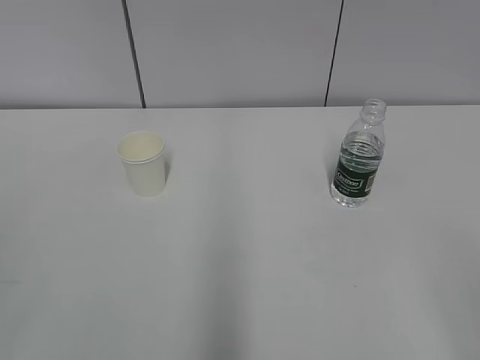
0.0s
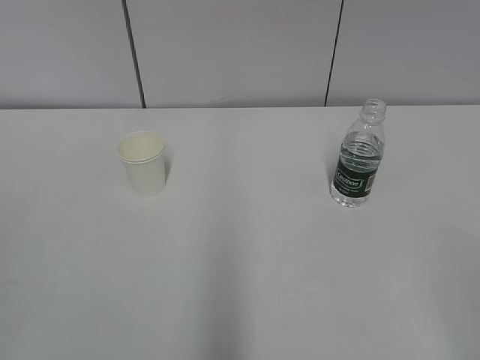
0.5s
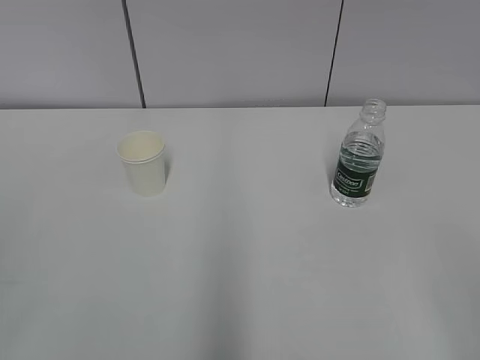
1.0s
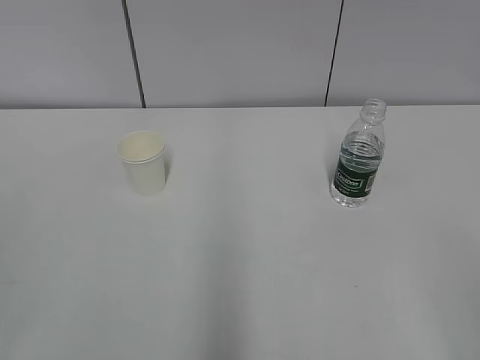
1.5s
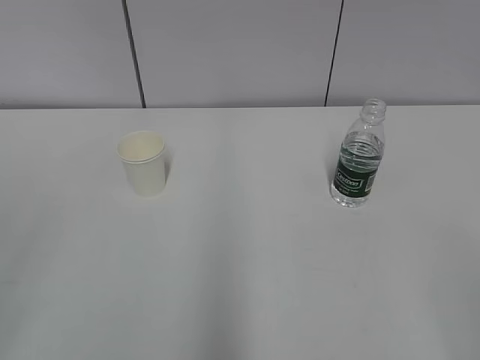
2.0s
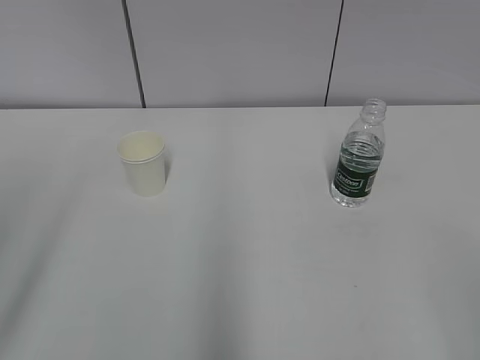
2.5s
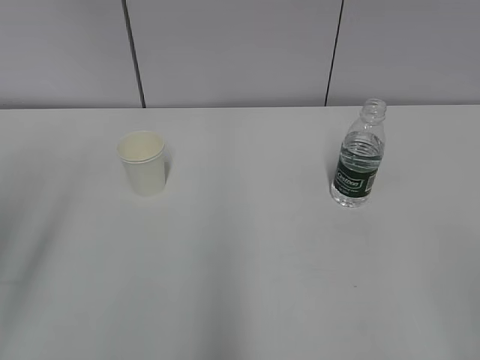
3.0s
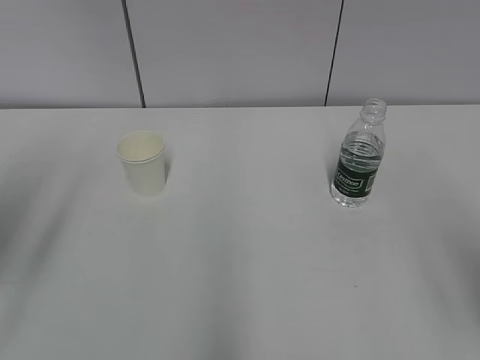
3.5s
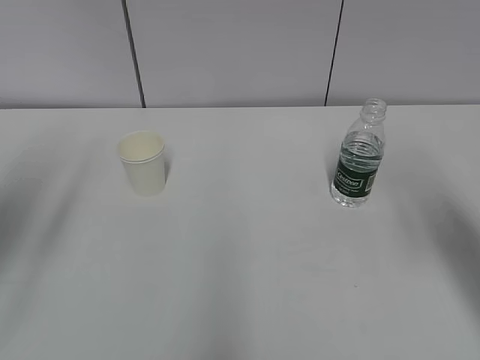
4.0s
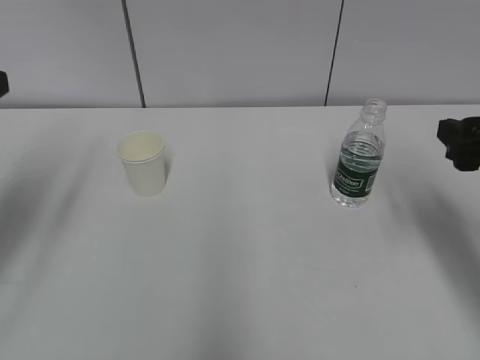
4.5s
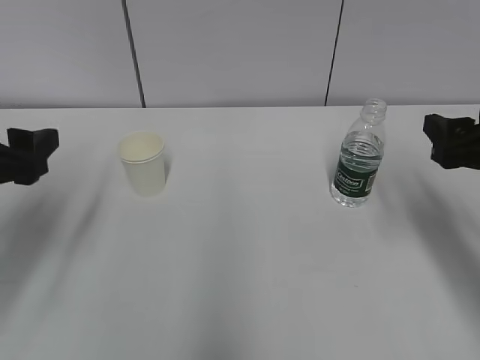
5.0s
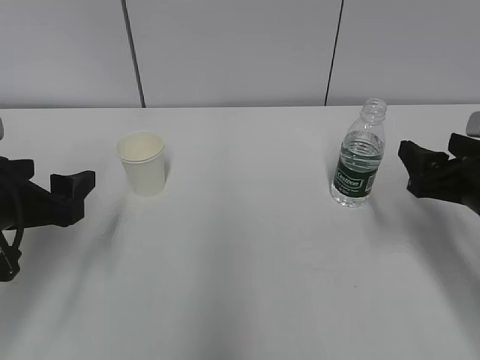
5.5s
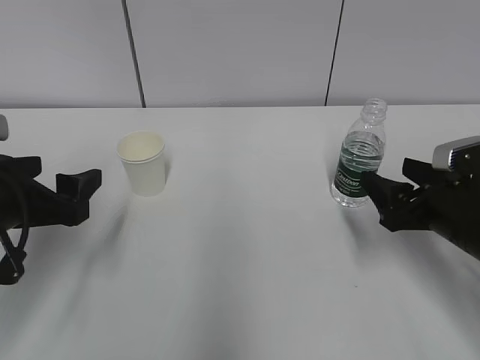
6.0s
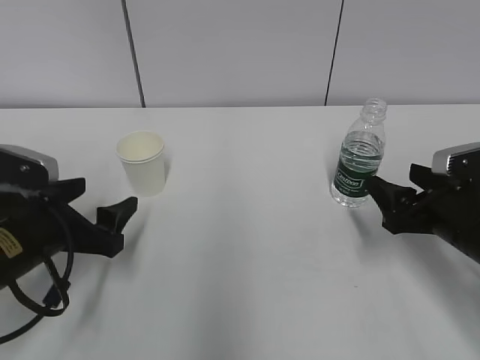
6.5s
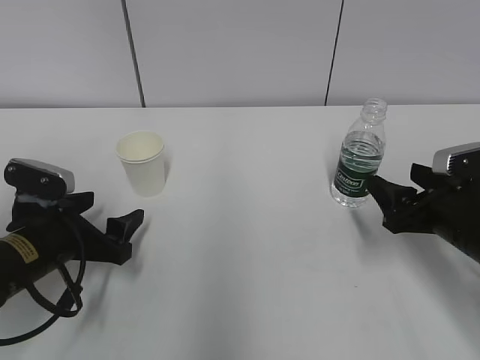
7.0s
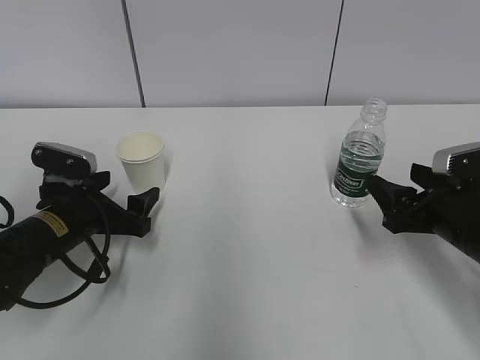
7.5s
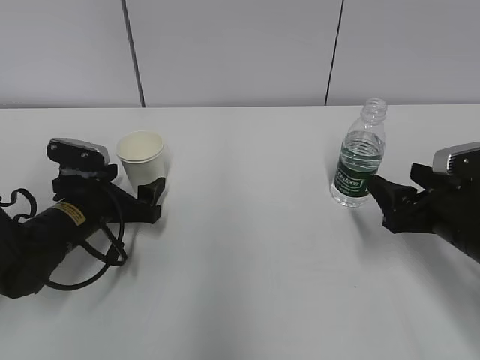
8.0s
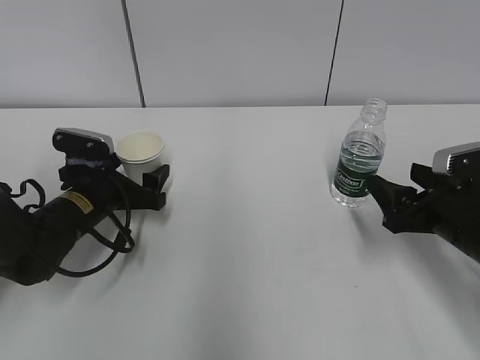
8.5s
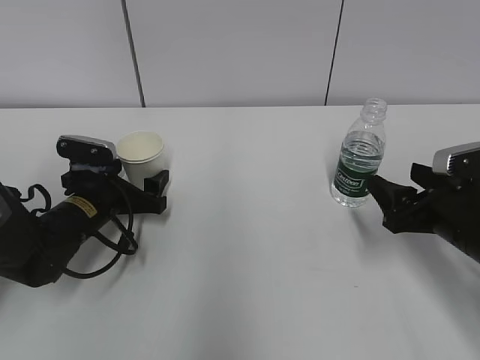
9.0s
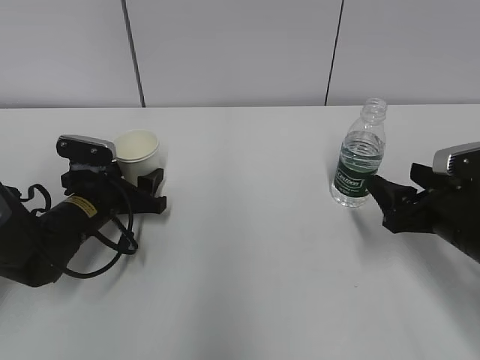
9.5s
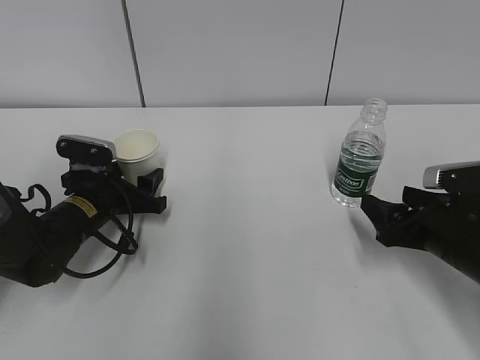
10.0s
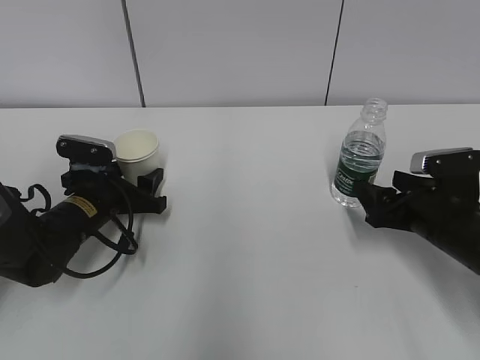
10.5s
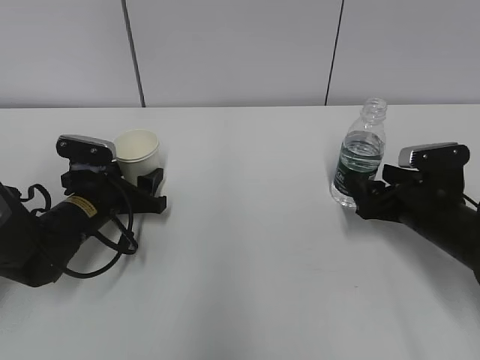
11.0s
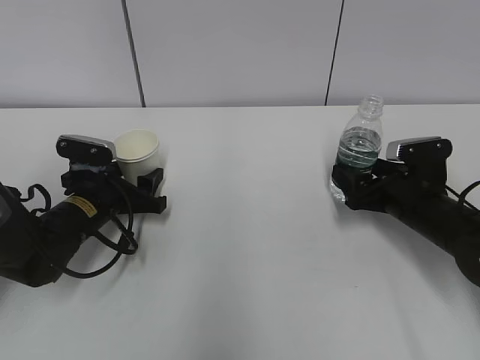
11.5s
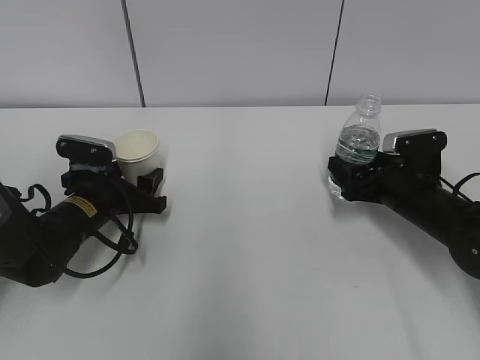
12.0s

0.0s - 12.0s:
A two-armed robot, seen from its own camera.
Step, 0.0s - 10.0s: Grab the paper cup with the left hand.
Step, 10.5s - 11.0s: Grab the water bottle with the right hand.
2.0s - 4.0s: The two grippers go approximately 20 cm forward. The left gripper opens up.
4.0s - 6.0s: The left gripper moves downward and to the right, about 15 cm, while the right gripper shifts some 15 cm downward and forward.
6.0s - 8.0s: The left gripper travels downward and forward by some 15 cm.
8.0s - 10.0s: The left gripper closes up.
10.0s - 12.0s: The right gripper travels forward by approximately 10 cm.

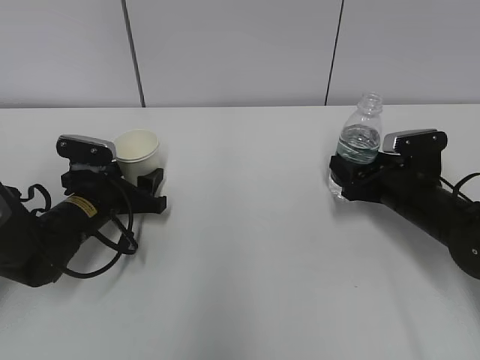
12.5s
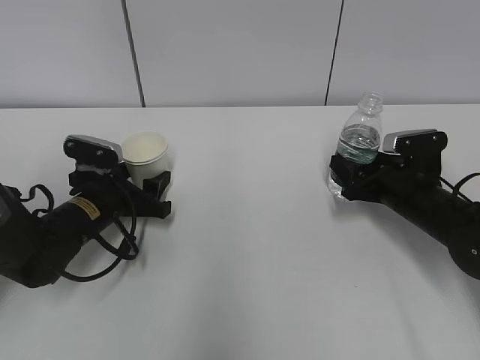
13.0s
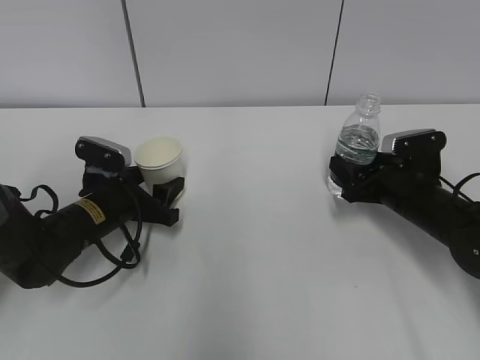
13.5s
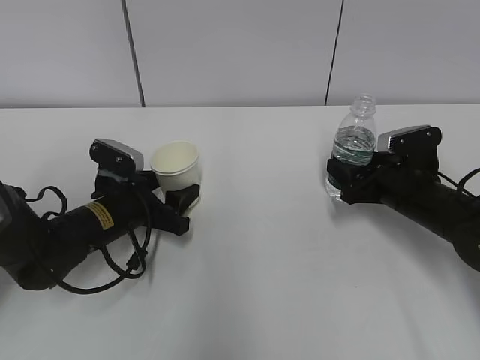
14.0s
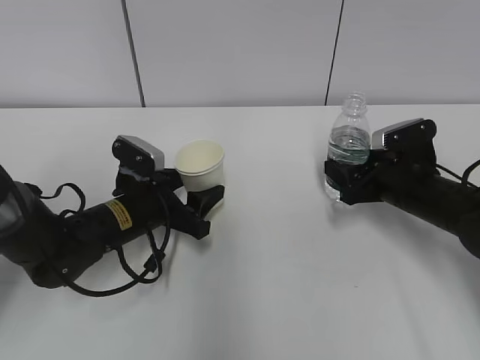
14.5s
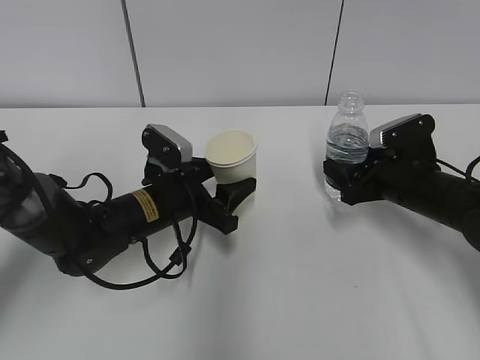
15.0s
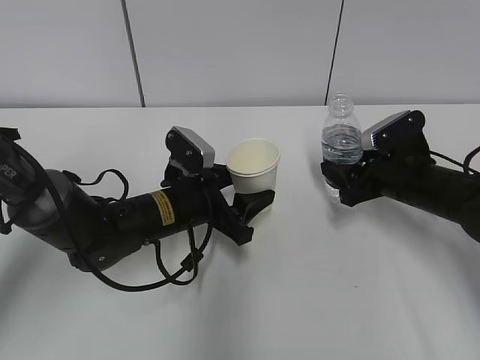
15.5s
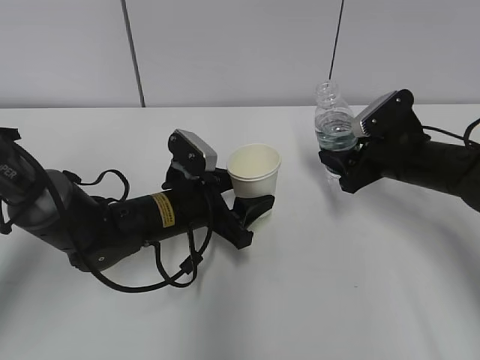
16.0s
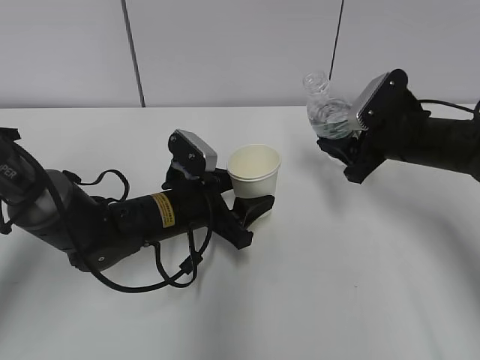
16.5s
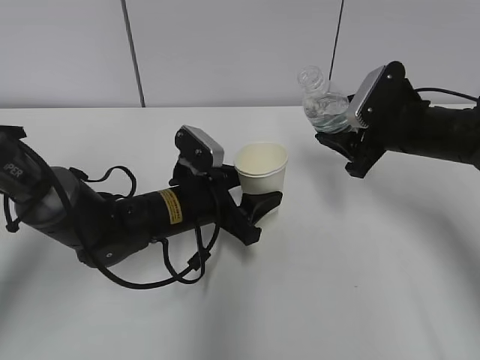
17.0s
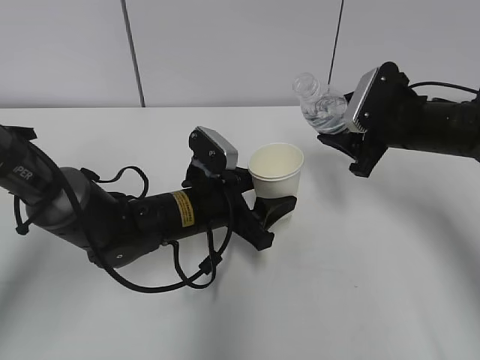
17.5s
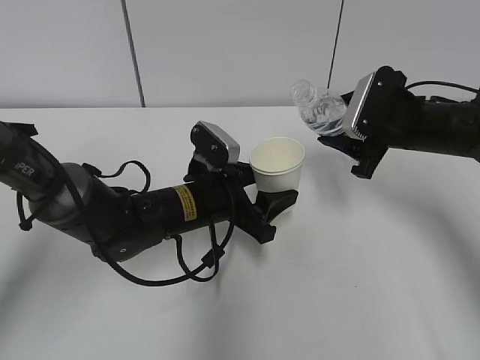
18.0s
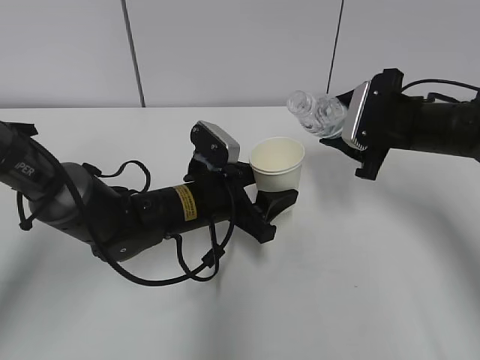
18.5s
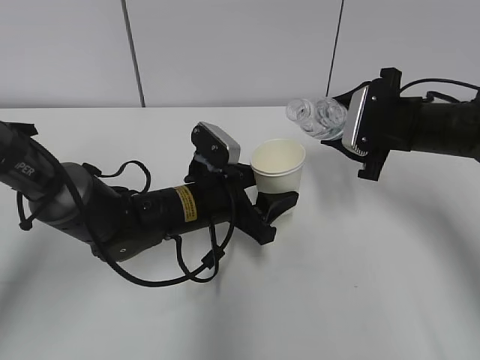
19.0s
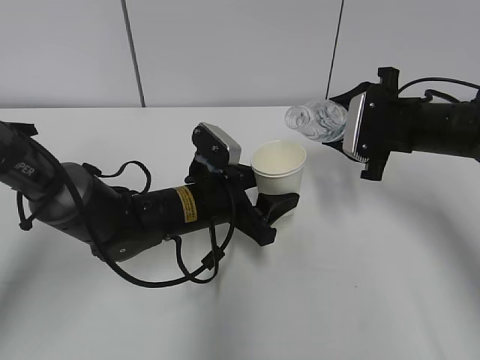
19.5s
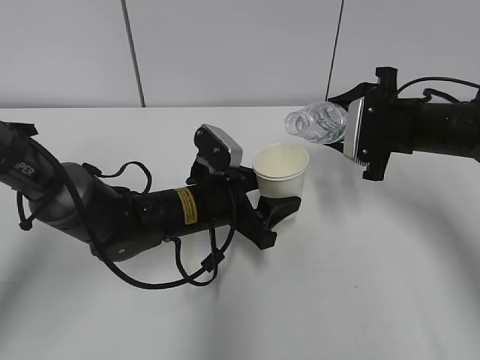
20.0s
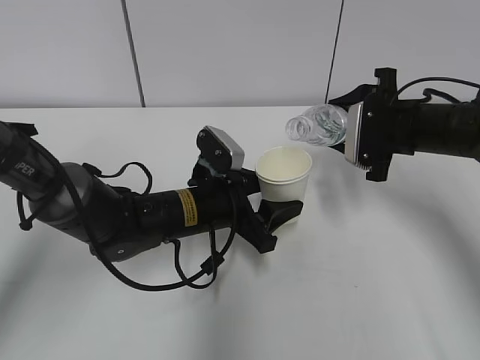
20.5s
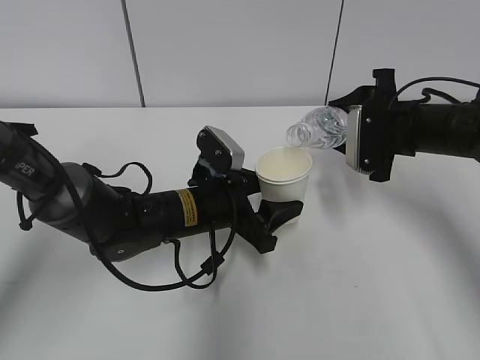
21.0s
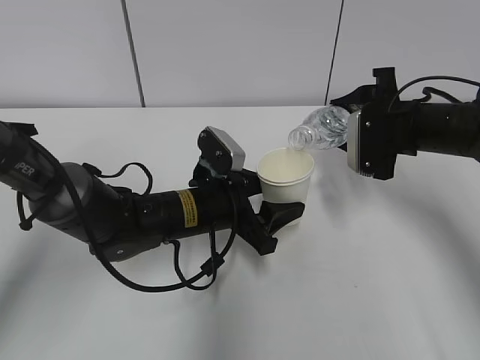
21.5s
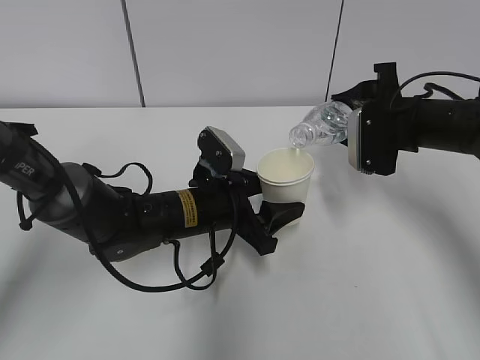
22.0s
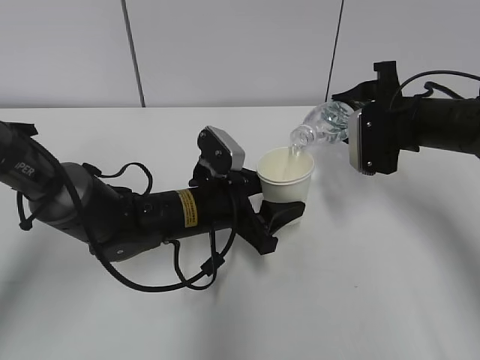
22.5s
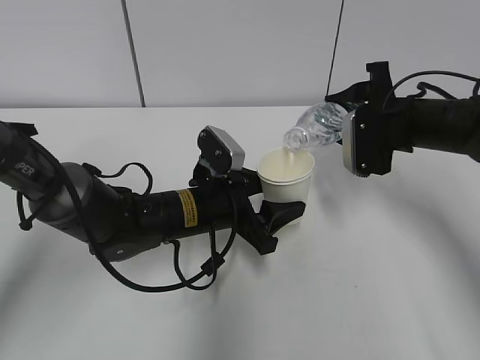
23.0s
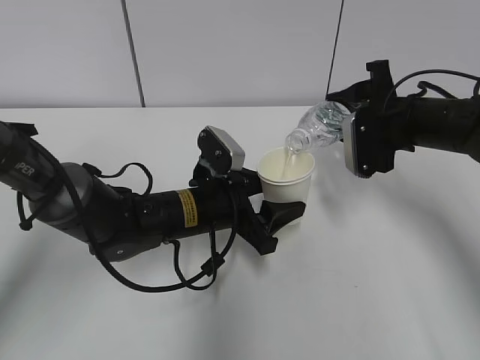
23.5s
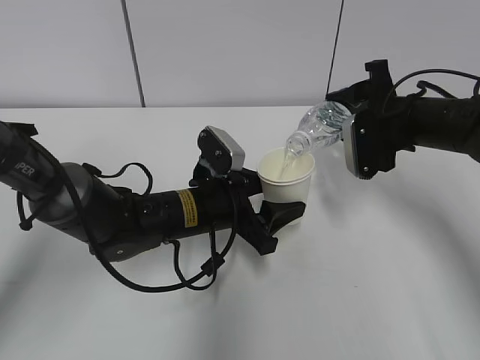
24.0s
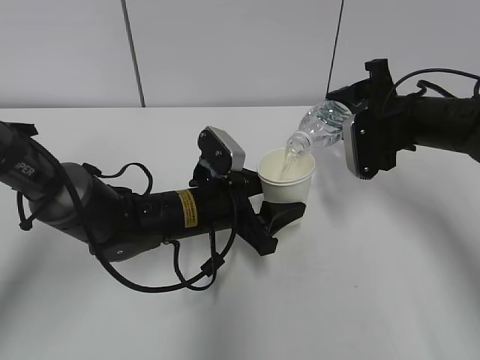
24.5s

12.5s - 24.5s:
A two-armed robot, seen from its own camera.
Step, 12.5s - 18.5s: Lift the paper cup with the left hand.
Step, 19.0s - 22.0s: Fill water with the left hand.
Step, 19.0s - 22.0s: Pour water with the right hand.
Step, 22.5s - 23.5s: Collect water with the right hand.
12.5s - 14.5s: The left gripper goes roughly 5 cm to the right.
14.5s - 16.5s: The left gripper moves to the right, some 5 cm. Meanwhile the right gripper travels upward by approximately 5 cm.
18.5s - 20.5s: The grippers move only a little.
20.5s - 22.5s: There are only small adjustments of the grippers.
22.5s - 24.5s: There are only small adjustments of the grippers.

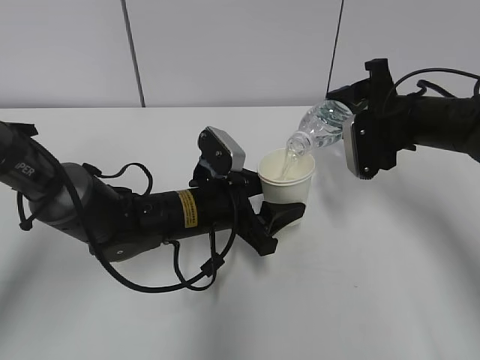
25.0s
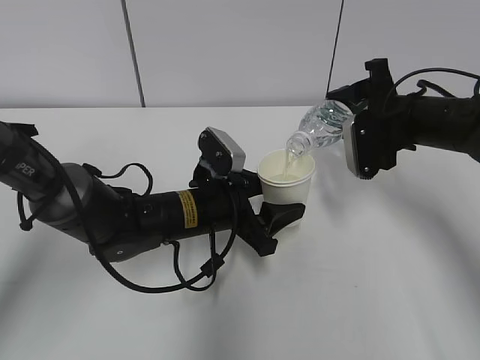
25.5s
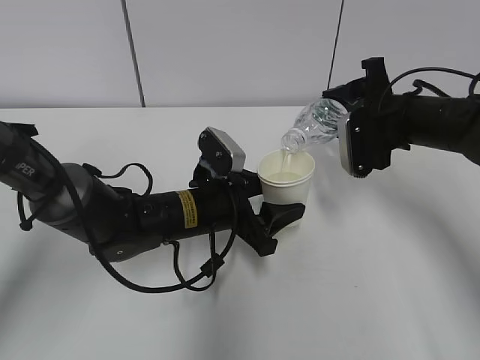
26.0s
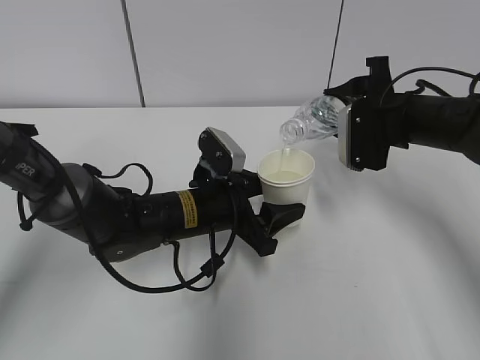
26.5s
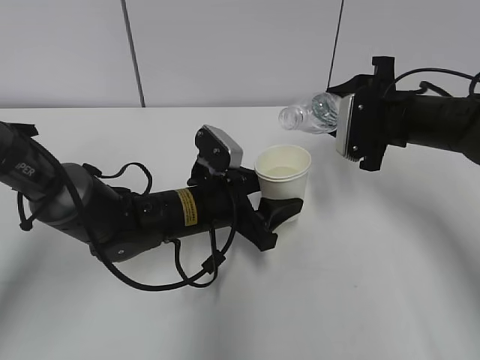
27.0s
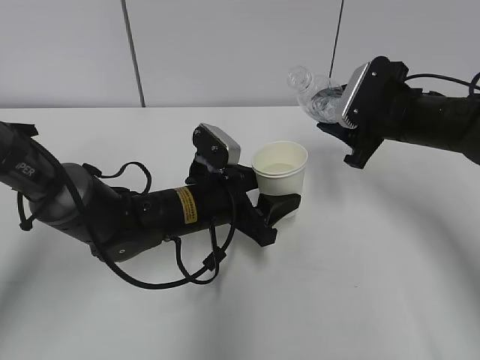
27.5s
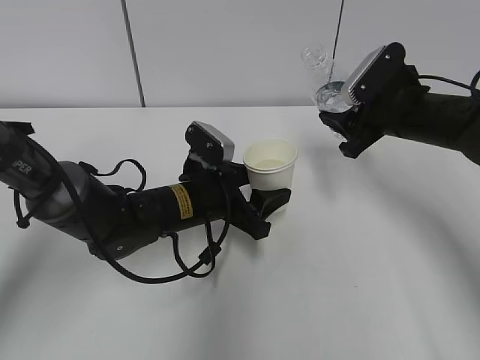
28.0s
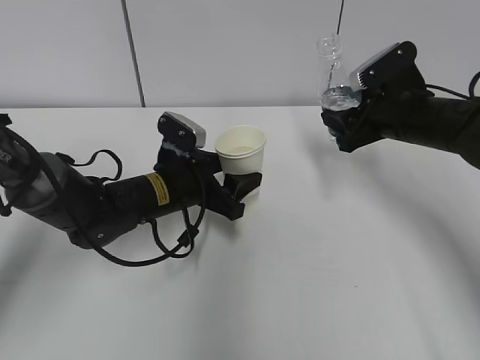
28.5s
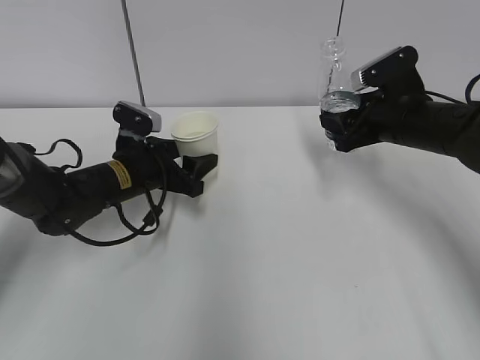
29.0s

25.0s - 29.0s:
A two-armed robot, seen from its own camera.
Step, 26.5s - 28.5s: Place the water bottle with the right hand.
25.0s - 27.0s: The grippers stay close to where they were, moving slightly.
27.0s - 29.0s: The left gripper goes about 10 cm to the left and forward.
